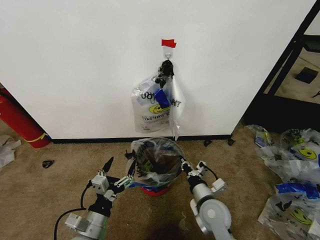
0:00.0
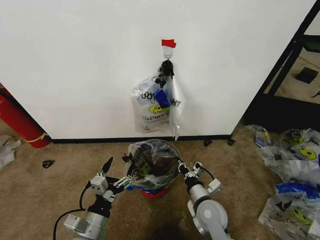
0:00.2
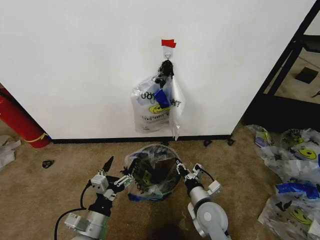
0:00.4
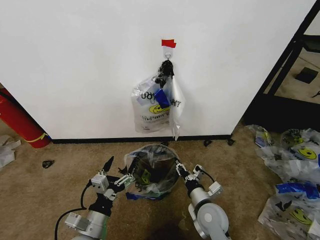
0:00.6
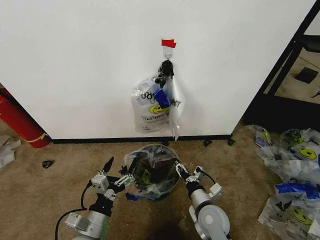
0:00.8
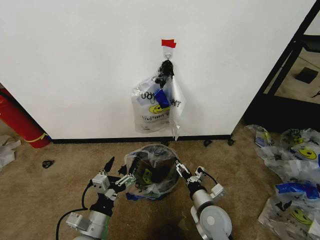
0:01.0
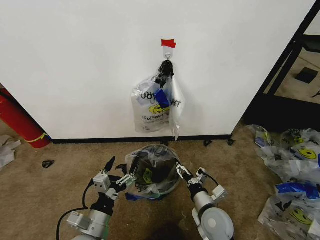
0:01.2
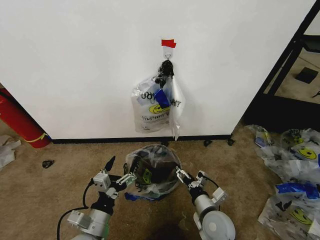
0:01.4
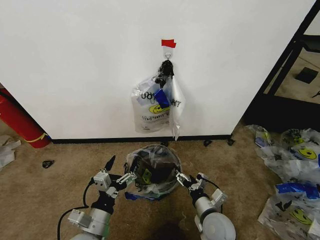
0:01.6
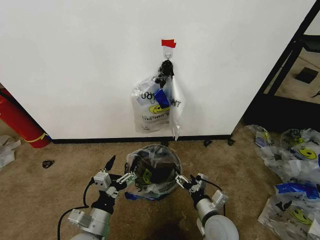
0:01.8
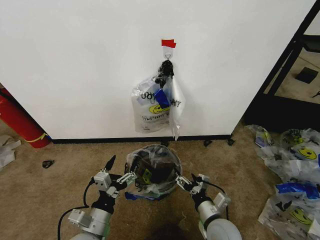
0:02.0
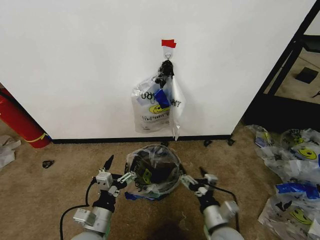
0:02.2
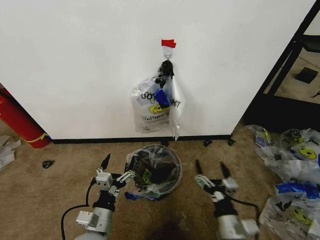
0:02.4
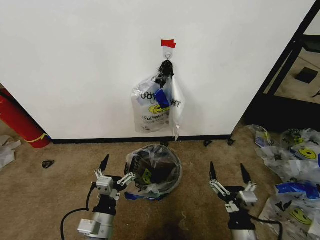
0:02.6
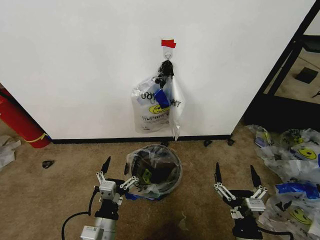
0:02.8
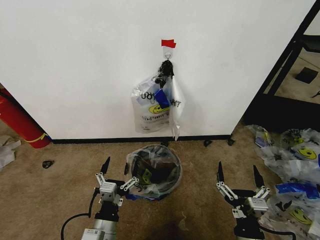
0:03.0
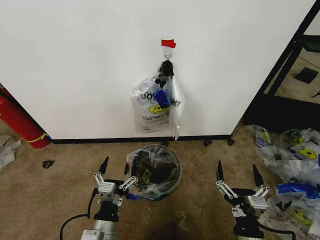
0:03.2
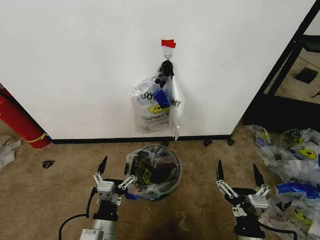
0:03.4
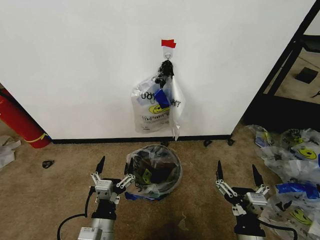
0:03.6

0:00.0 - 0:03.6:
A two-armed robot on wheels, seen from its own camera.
Task of the whole recording: Pick up the garbage bag from the wall and place it over the trash bin.
0:00.0 - 0:01.8: The right gripper opens.
0:01.8 - 0:03.6: The right gripper moves backward and upward, approximately 15 cm.

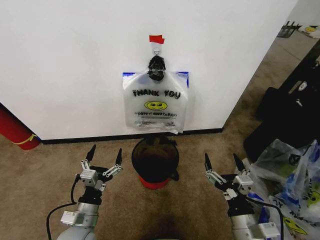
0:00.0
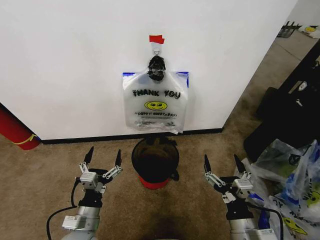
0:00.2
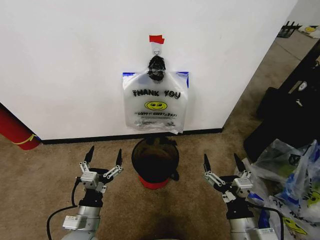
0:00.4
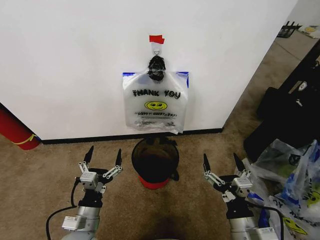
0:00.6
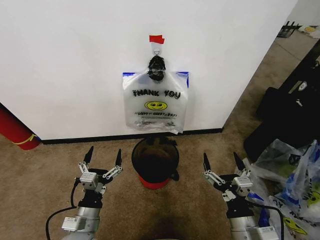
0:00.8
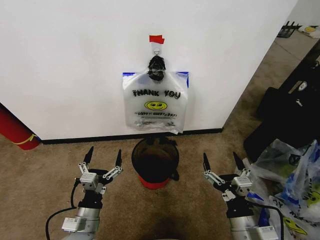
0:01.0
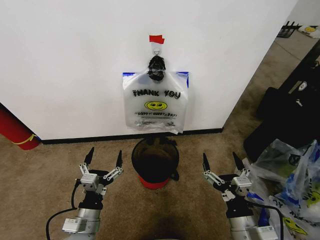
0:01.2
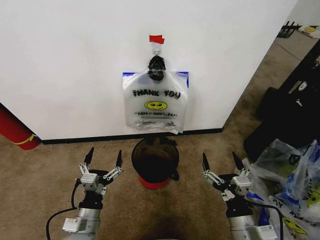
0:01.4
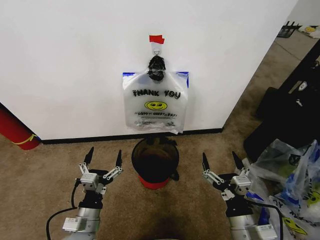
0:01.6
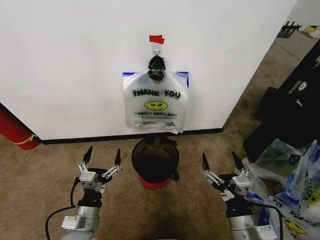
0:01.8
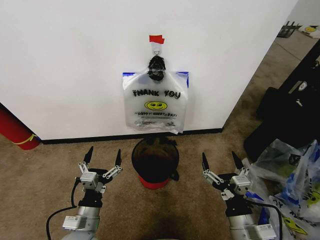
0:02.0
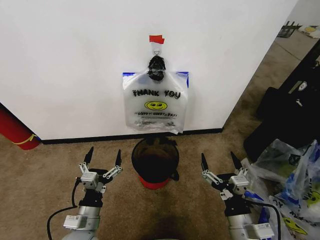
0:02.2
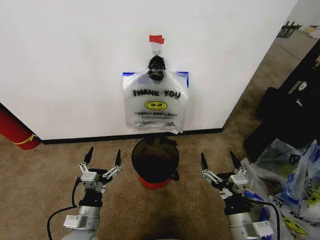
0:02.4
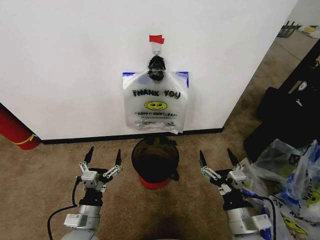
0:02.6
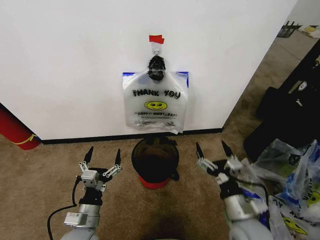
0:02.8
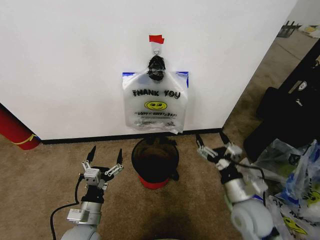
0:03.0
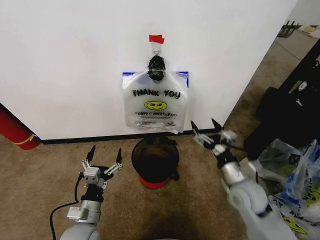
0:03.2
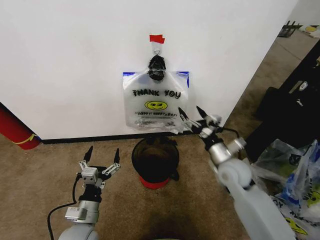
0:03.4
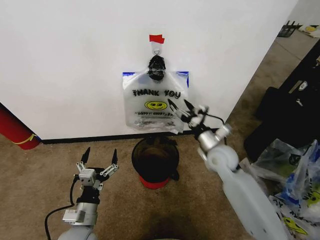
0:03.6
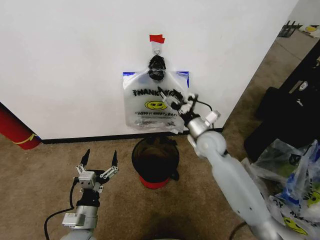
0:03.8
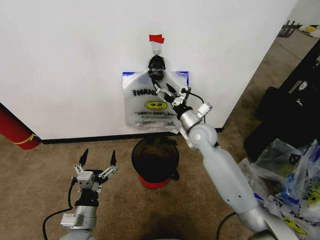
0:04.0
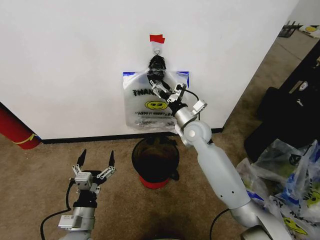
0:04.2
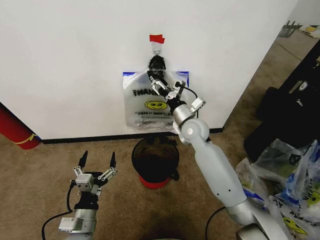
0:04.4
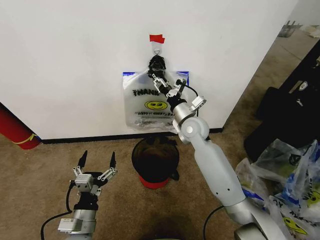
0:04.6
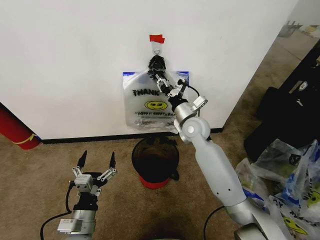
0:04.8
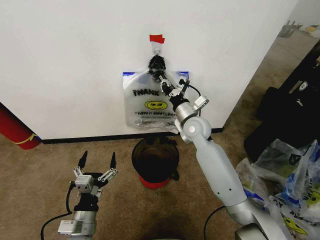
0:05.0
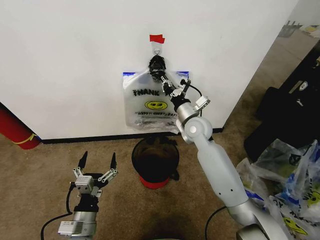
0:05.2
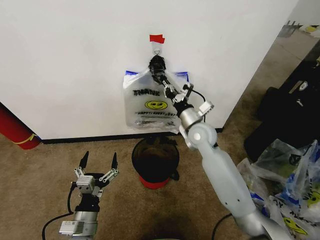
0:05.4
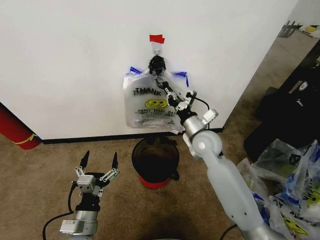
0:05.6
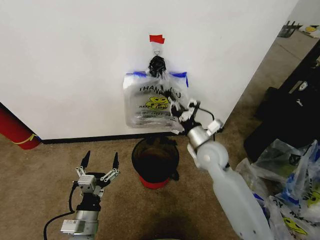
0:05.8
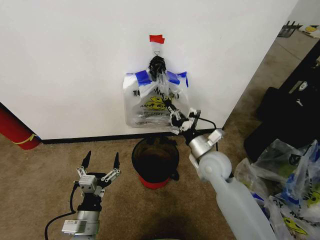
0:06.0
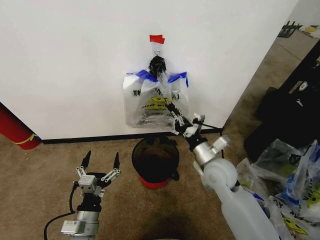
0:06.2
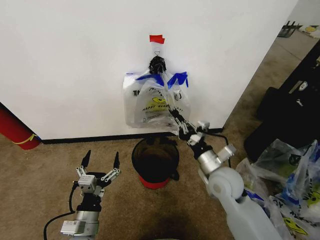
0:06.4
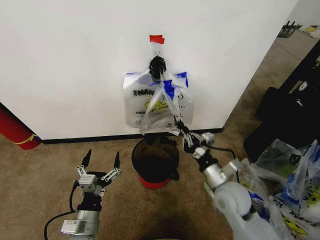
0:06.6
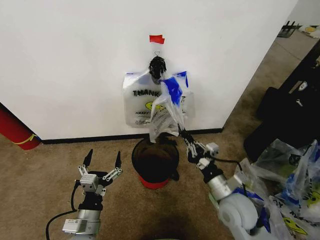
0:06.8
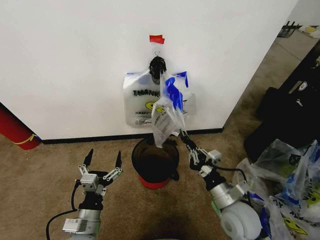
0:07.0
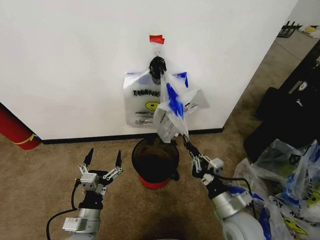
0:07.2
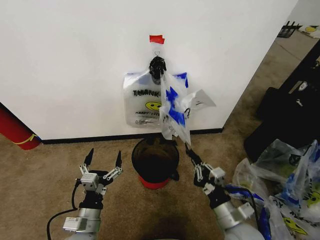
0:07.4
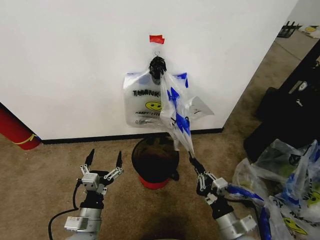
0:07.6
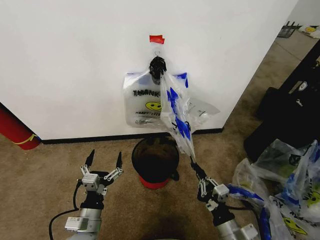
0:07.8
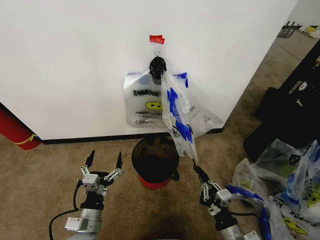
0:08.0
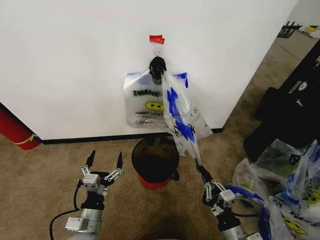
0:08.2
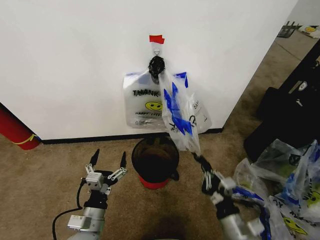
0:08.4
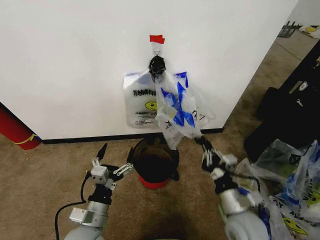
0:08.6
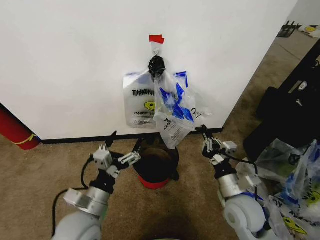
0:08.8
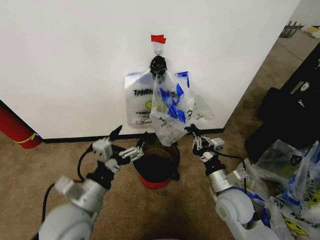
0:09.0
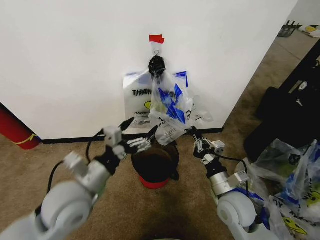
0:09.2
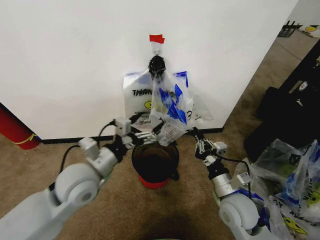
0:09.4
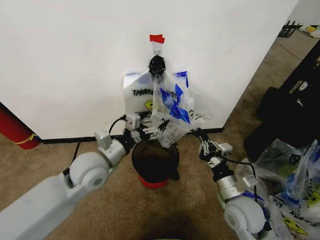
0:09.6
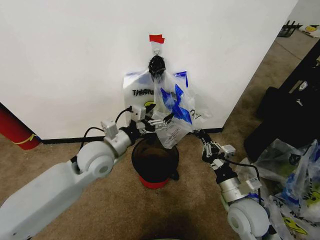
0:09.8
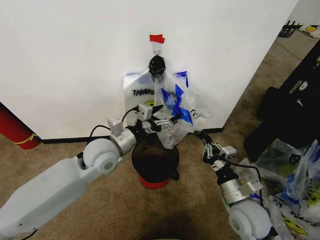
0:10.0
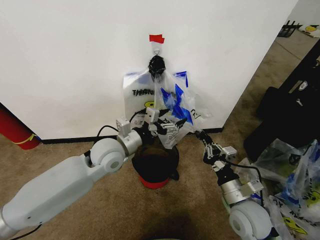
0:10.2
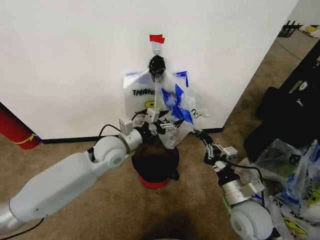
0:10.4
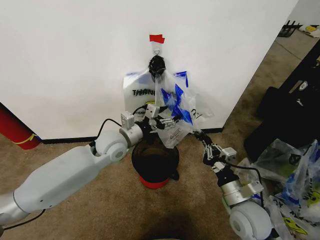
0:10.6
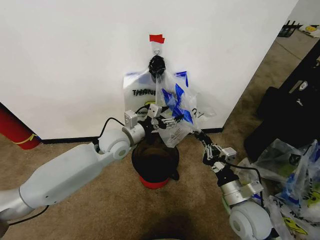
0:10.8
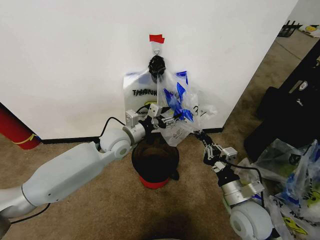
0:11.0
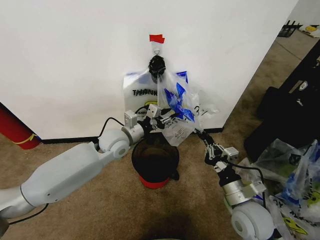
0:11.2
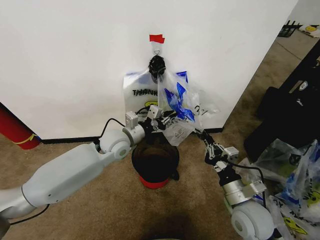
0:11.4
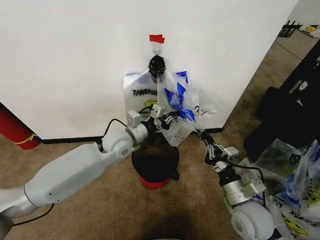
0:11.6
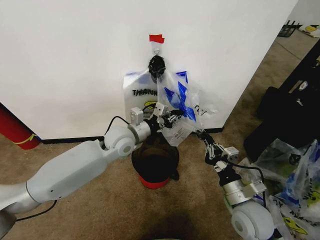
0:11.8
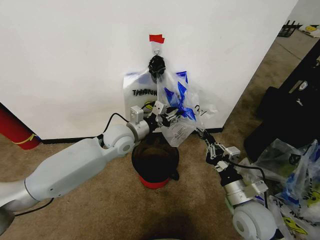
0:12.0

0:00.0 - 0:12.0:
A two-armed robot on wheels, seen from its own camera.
Task of the whole recording: Pick up the garbage bag from the wall and place it over the trash bin.
0:01.6 - 0:03.0: The right gripper goes about 10 cm forward.
0:03.0 - 0:04.4: The right gripper moves forward, to the left and upward, roughly 30 cm.
0:04.4 - 0:06.0: The right gripper goes approximately 10 cm backward, and closes its fingers.
0:06.0 - 0:07.6: The right gripper shifts about 25 cm backward and downward.
0:07.6 - 0:09.0: The left gripper moves upward, some 15 cm. Meanwhile the right gripper goes roughly 10 cm forward and upward.
0:09.0 - 0:10.4: The left gripper shifts some 20 cm forward.
0:10.4 - 0:12.0: The left gripper closes its fingers.

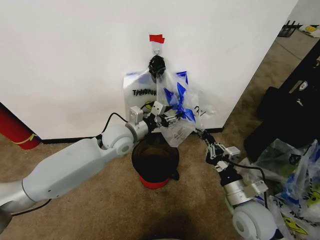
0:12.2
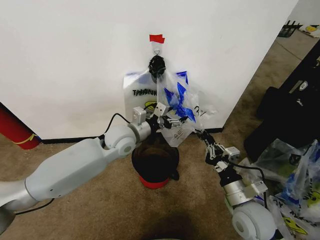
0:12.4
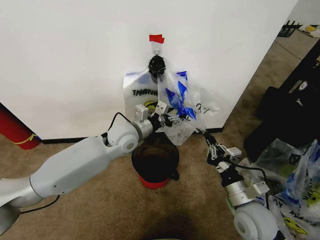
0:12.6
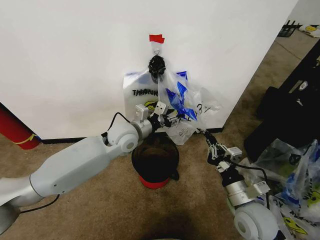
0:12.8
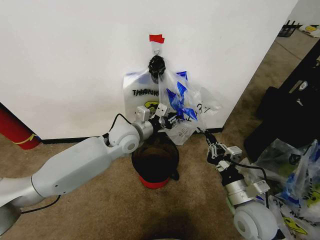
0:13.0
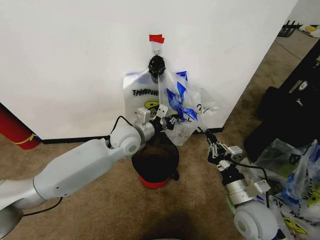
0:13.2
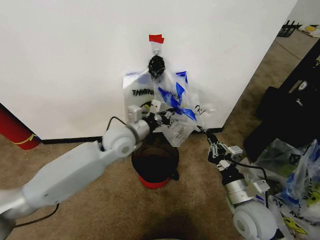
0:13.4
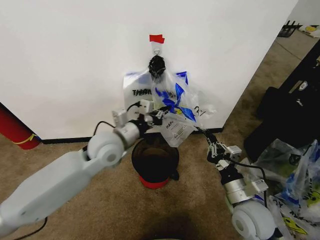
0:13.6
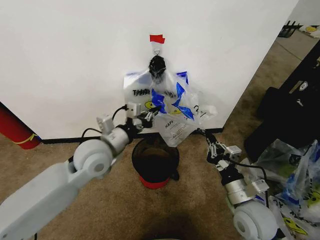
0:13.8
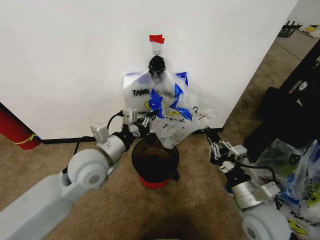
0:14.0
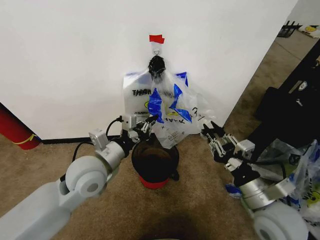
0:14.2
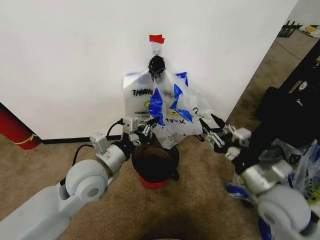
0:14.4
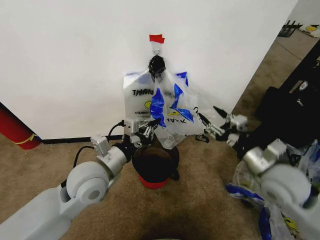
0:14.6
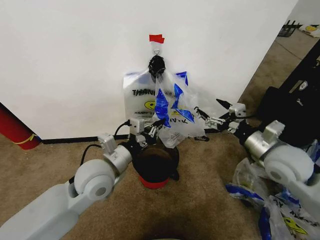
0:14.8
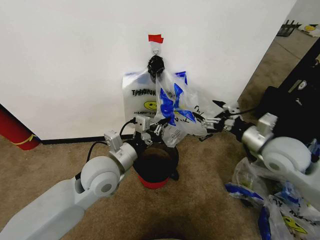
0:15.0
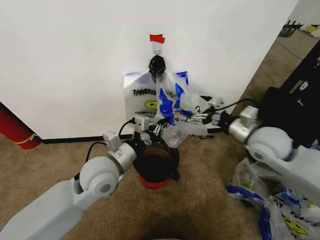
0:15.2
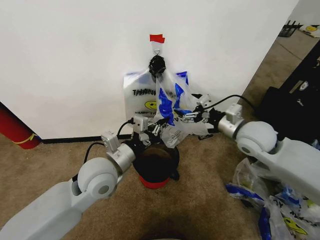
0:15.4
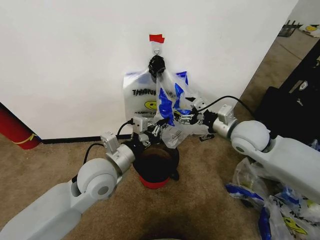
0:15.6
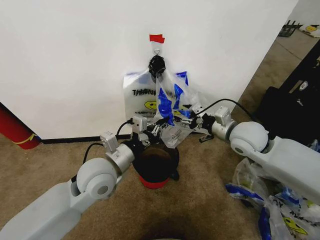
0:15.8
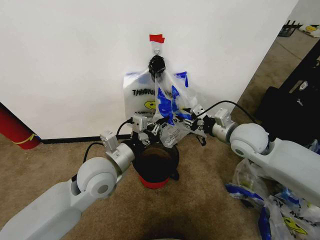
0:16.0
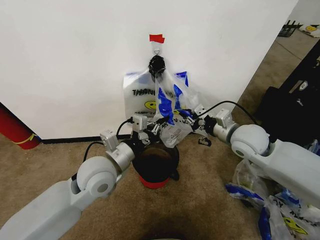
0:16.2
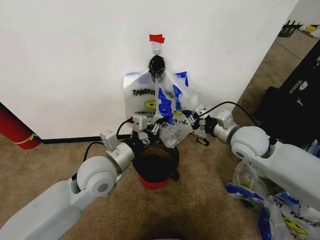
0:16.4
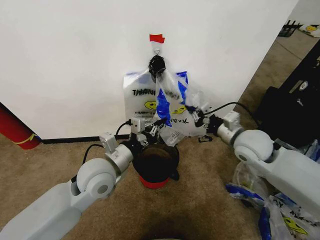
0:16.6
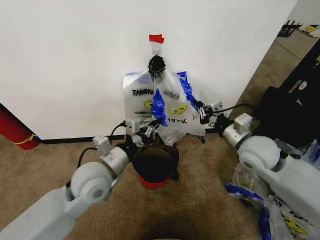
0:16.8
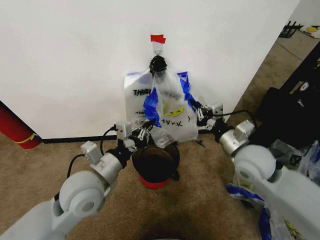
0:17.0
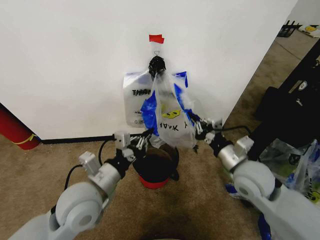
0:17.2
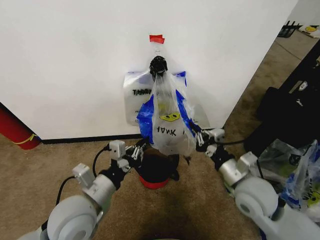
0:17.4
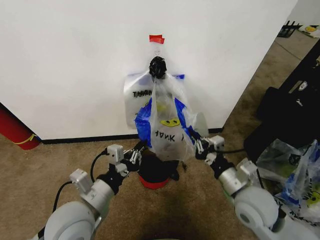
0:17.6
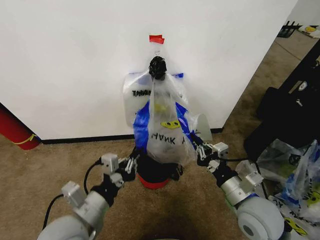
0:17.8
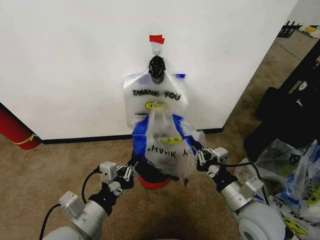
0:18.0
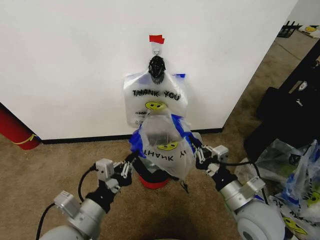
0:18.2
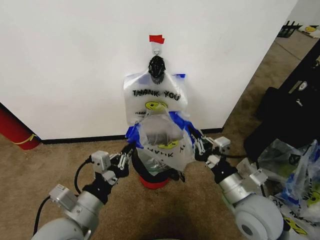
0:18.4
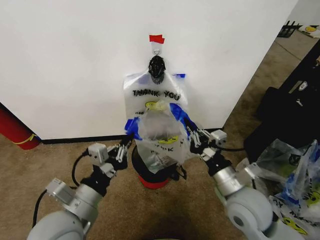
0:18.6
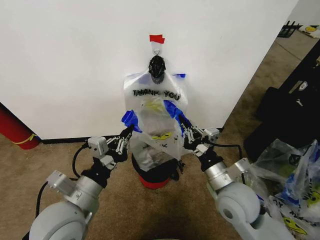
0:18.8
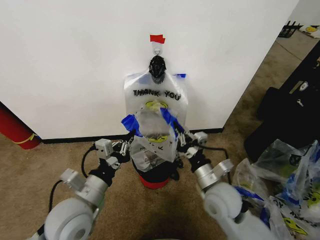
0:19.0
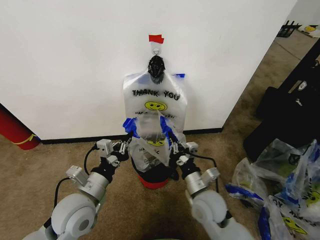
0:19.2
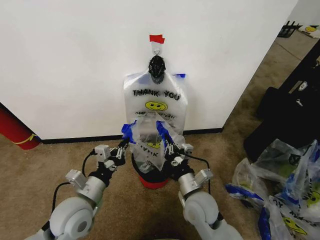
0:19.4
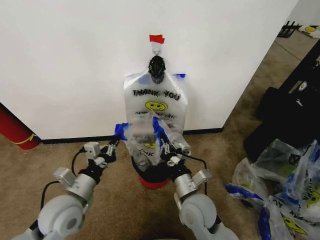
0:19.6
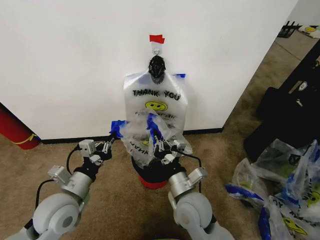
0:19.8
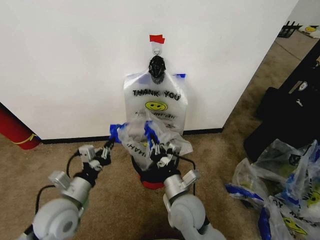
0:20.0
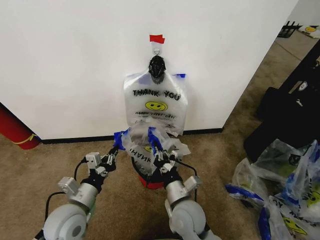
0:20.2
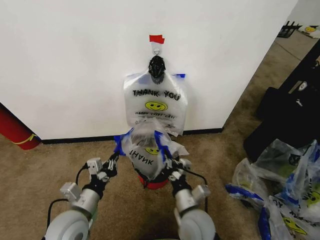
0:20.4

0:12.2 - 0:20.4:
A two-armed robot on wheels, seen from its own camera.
Task of the whole recording: Pick up the garbage bag from the wall and place it over the trash bin.
0:12.2 - 0:13.8: The left gripper is displaced backward by roughly 10 cm, and closes its fingers.
0:13.8 - 0:15.4: The right gripper goes approximately 20 cm forward and upward, and opens. The left gripper shifts by about 5 cm.
0:15.4 - 0:17.2: The left gripper heads backward, covering about 5 cm. The right gripper goes roughly 10 cm backward and downward, and closes up.
0:17.2 - 0:18.8: The right gripper moves to the left, roughly 5 cm.
0:18.8 - 0:20.4: The right gripper travels downward and to the left by approximately 15 cm. The left gripper goes some 10 cm downward.
